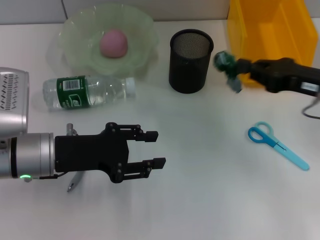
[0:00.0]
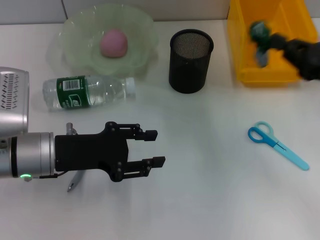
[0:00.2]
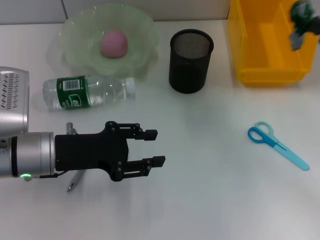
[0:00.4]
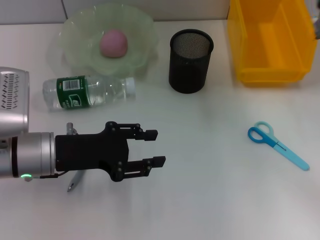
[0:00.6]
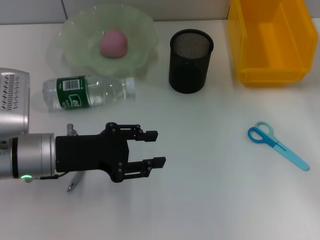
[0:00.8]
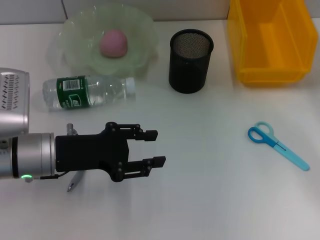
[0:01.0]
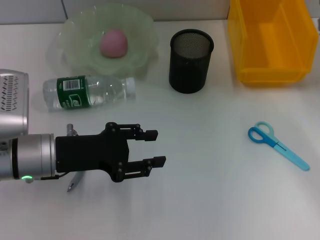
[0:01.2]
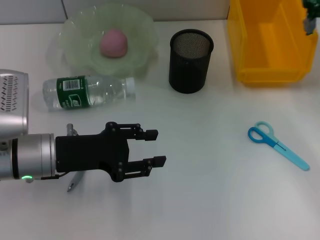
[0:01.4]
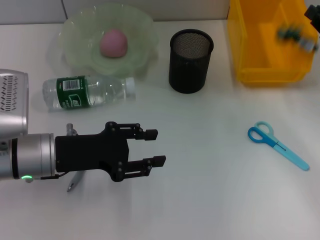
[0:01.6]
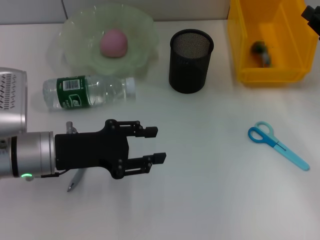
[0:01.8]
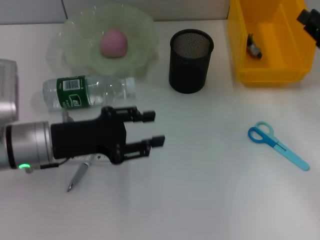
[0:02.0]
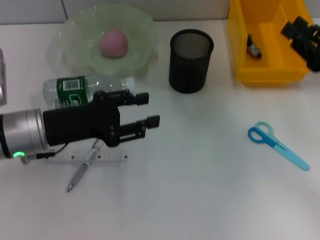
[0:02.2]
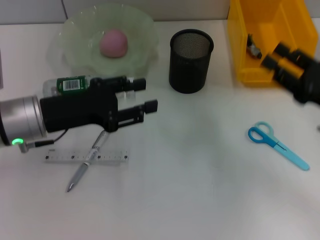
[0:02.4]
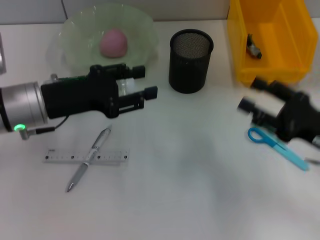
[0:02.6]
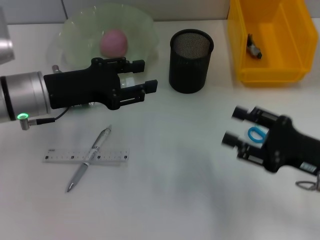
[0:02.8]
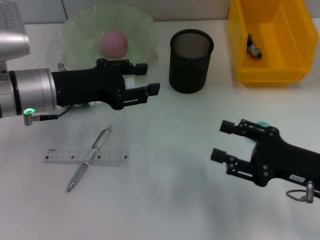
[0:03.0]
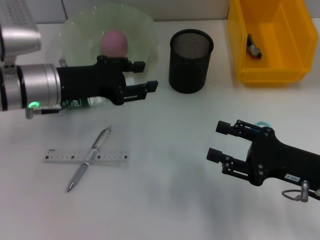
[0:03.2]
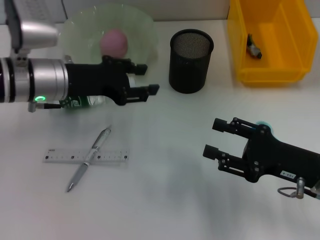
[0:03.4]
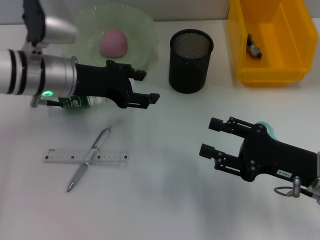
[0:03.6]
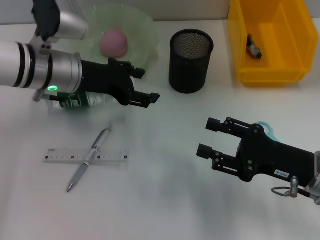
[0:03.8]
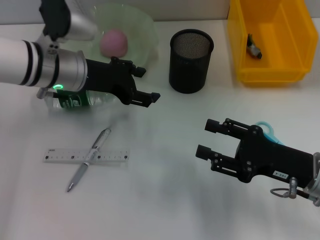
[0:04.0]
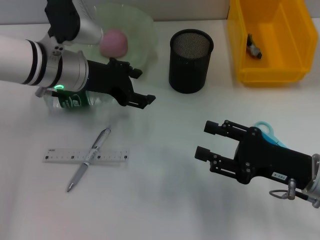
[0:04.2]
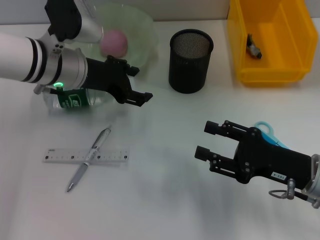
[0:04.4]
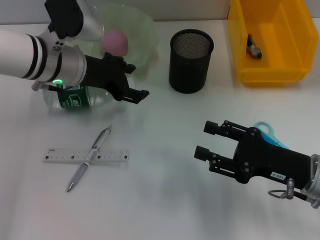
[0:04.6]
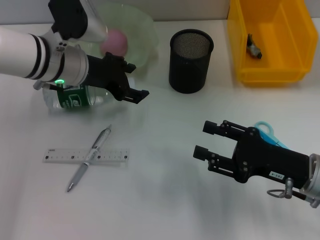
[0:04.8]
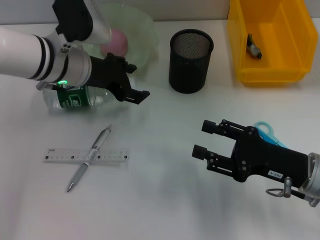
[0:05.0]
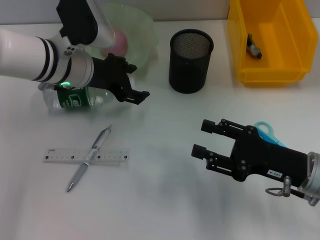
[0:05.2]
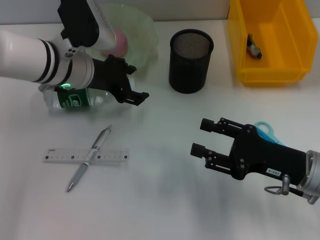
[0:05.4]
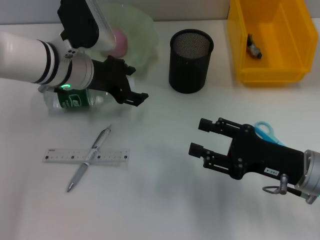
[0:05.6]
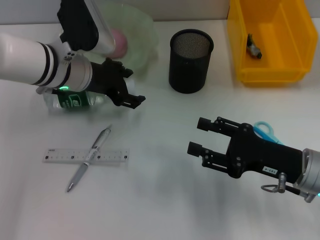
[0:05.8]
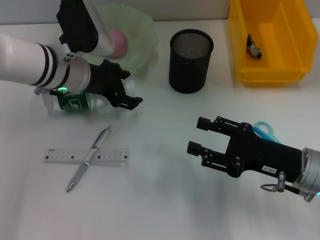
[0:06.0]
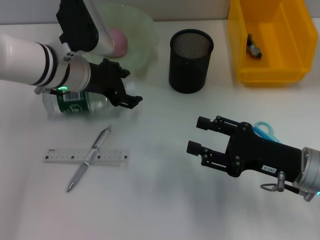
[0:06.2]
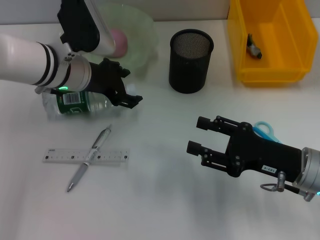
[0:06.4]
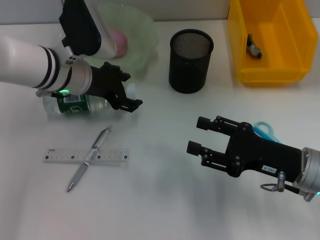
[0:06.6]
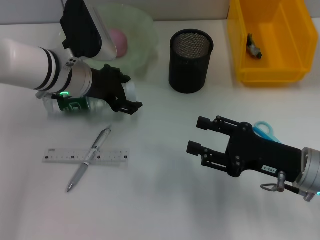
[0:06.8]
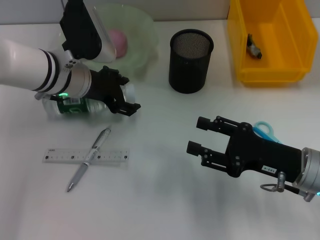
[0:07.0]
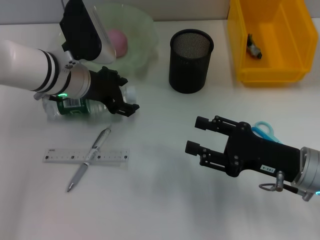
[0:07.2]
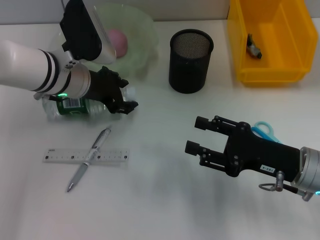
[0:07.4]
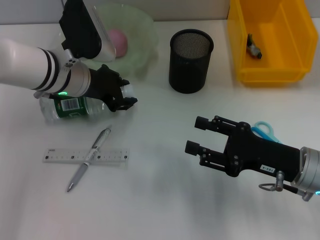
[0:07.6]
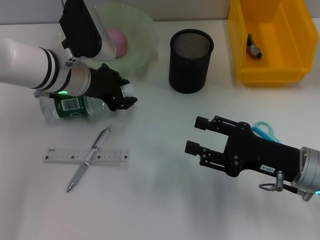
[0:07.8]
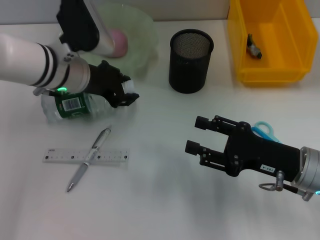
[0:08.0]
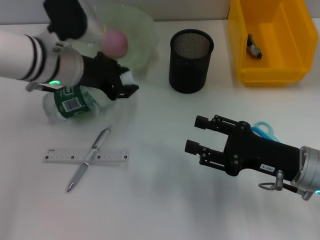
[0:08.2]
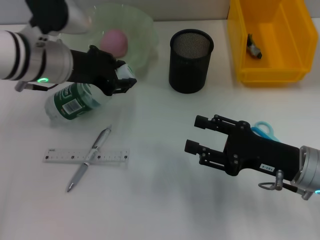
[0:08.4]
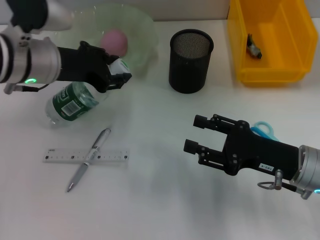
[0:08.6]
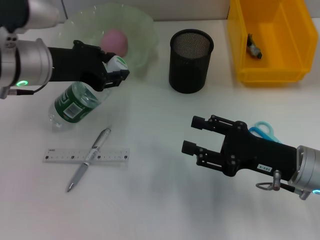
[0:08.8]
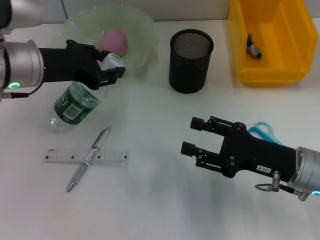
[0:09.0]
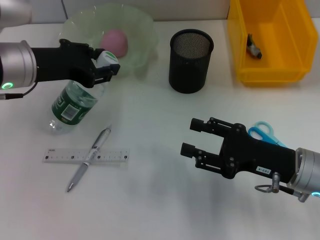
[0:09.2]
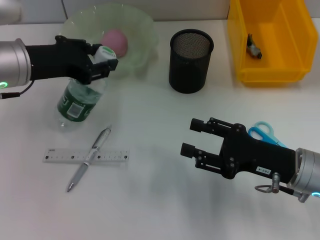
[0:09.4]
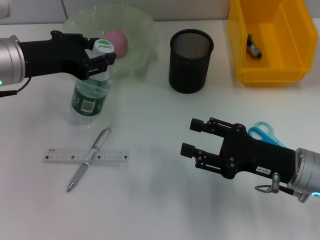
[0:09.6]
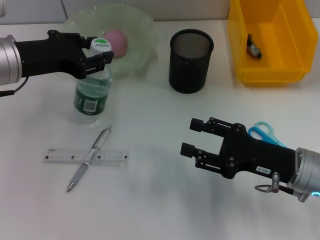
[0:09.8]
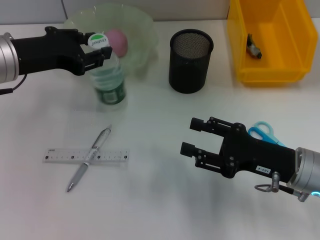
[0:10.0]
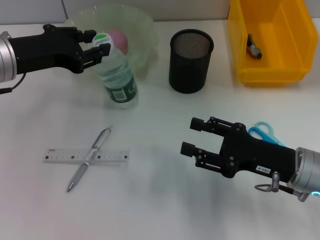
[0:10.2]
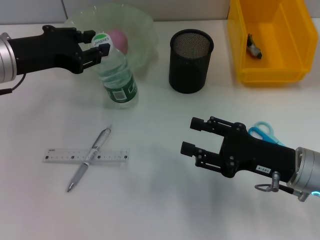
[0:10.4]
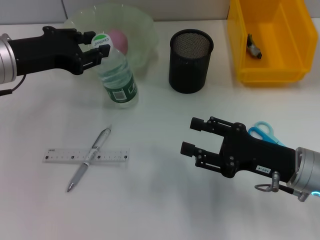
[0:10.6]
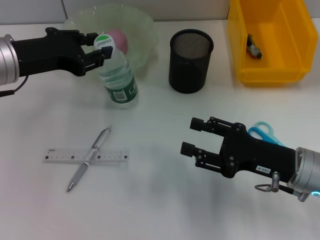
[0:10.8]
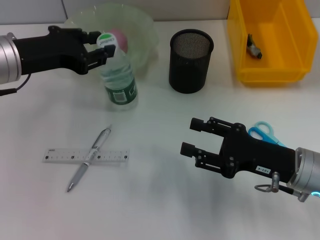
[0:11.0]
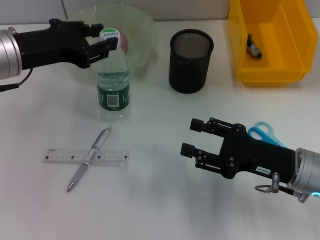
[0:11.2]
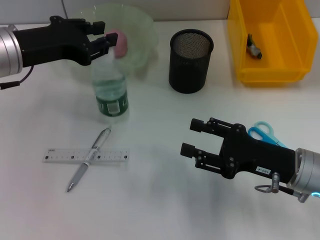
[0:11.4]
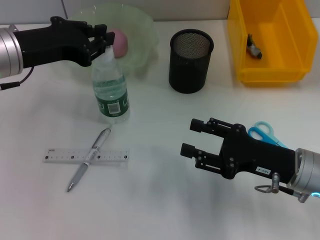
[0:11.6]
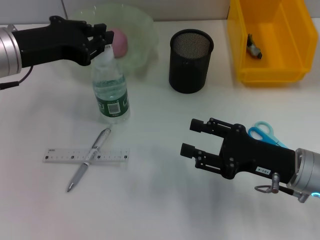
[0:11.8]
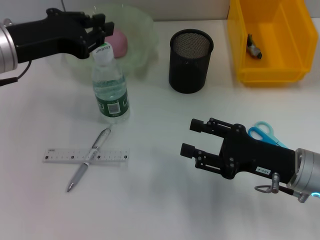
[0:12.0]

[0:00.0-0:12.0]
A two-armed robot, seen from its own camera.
Step, 0:00.0 to 0:01.8: Place the plastic into the trash can with the right hand.
Step, 0:02.2 to 0:07.8: Grab the water bottle with the left hand.
0:00.0 to 0:01.6: The right gripper travels to the right by about 5 cm.
0:01.6 to 0:03.0: The left gripper goes about 5 cm forward, while the right gripper moves backward, to the left and downward, roughly 15 cm, and opens.
0:03.0 to 0:04.4: The left gripper moves forward, roughly 5 cm.
0:04.4 to 0:06.0: The grippers make only small movements.
0:06.0 to 0:07.6: Both grippers stay about where they are.
0:07.6 to 0:09.0: The left gripper shifts some 5 cm upward.
0:09.0 to 0:10.4: There are only small adjustments of the grippers.
0:10.4 to 0:12.0: The left gripper closes.

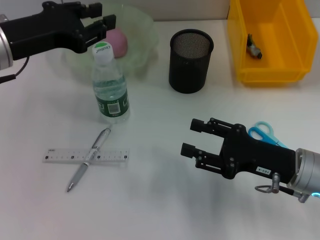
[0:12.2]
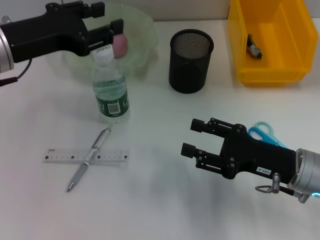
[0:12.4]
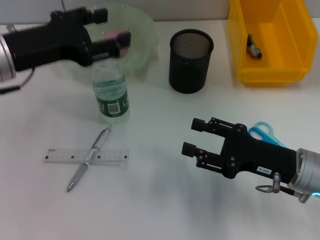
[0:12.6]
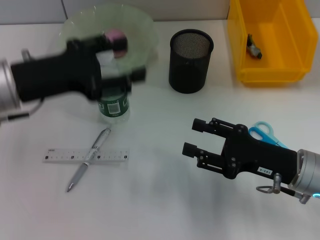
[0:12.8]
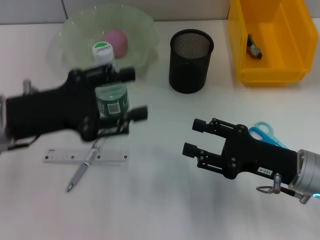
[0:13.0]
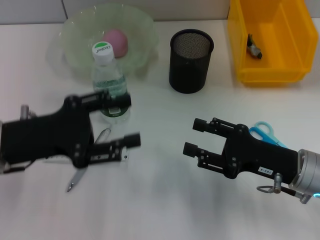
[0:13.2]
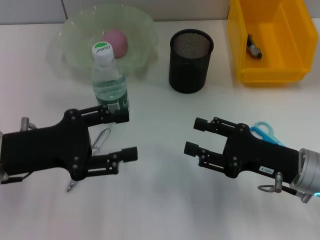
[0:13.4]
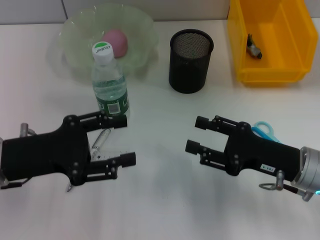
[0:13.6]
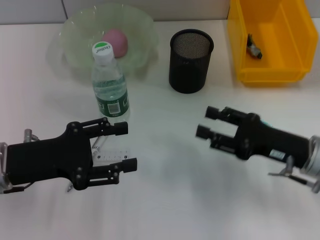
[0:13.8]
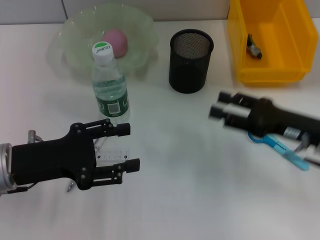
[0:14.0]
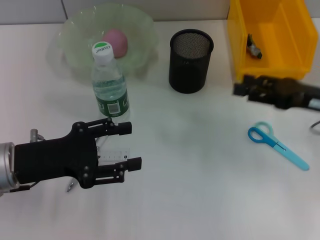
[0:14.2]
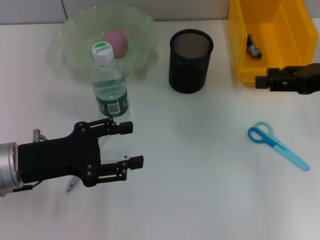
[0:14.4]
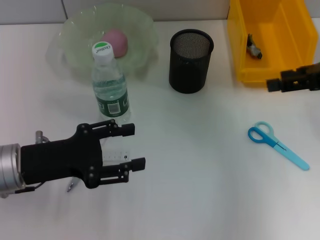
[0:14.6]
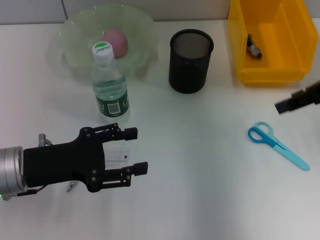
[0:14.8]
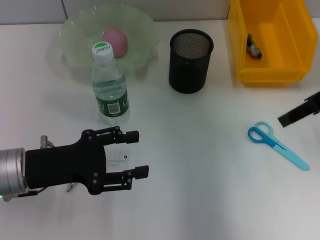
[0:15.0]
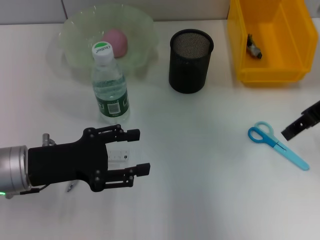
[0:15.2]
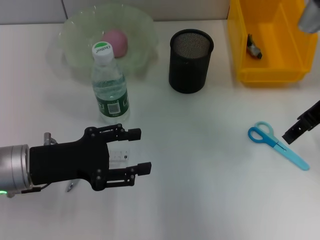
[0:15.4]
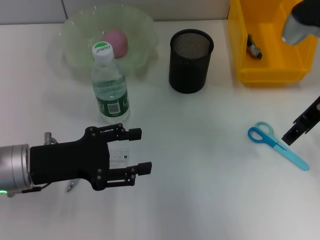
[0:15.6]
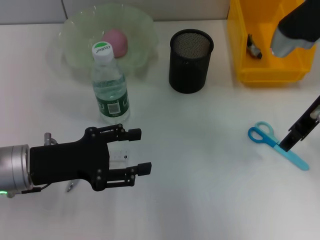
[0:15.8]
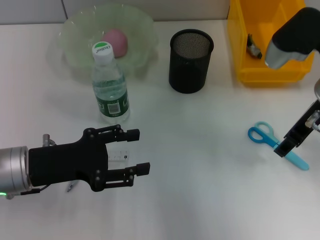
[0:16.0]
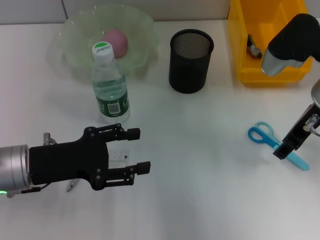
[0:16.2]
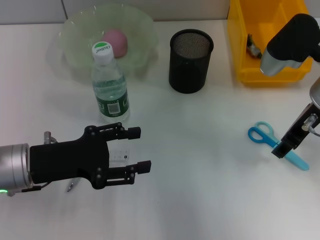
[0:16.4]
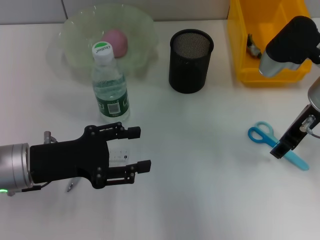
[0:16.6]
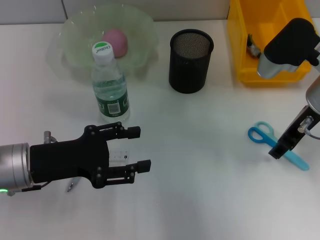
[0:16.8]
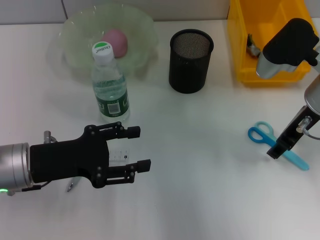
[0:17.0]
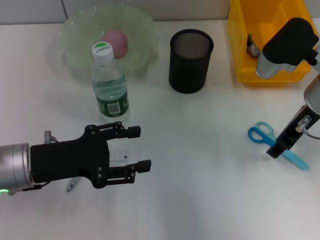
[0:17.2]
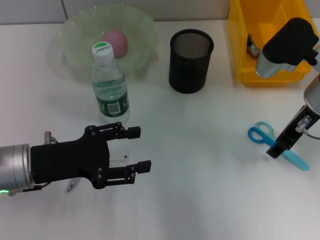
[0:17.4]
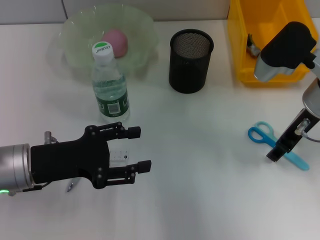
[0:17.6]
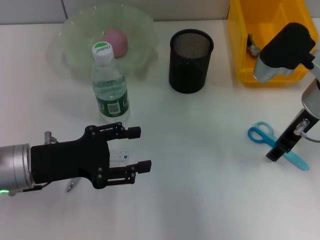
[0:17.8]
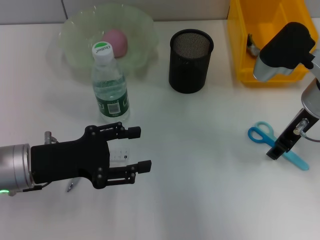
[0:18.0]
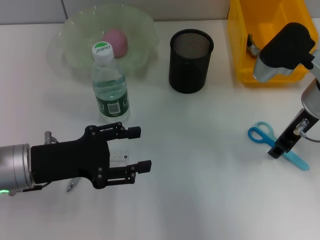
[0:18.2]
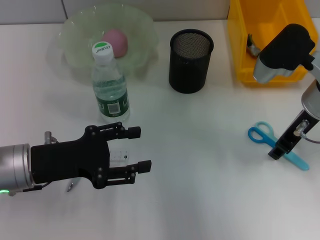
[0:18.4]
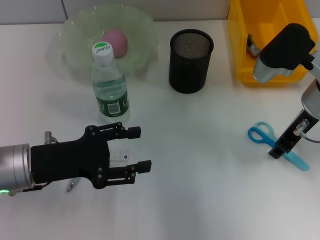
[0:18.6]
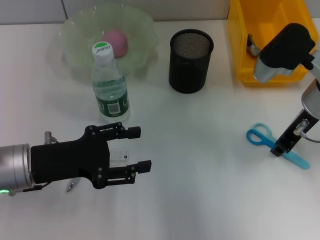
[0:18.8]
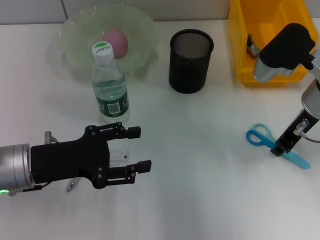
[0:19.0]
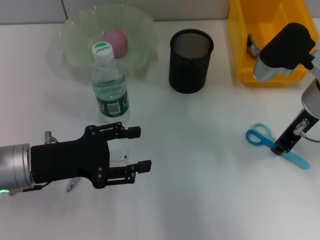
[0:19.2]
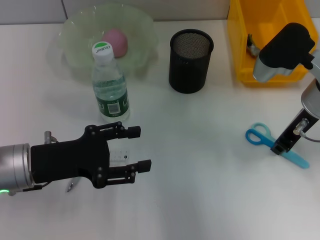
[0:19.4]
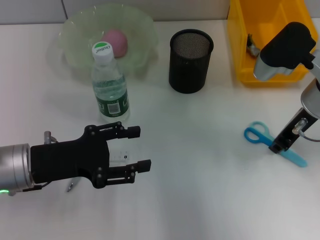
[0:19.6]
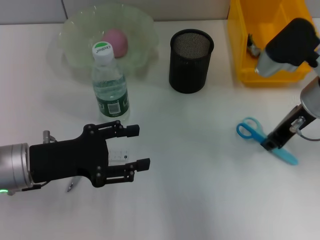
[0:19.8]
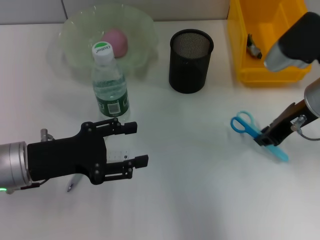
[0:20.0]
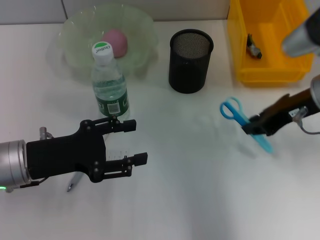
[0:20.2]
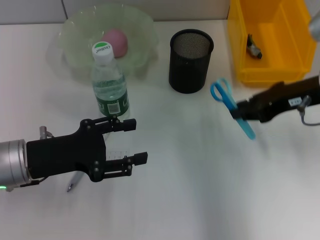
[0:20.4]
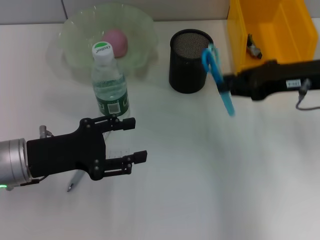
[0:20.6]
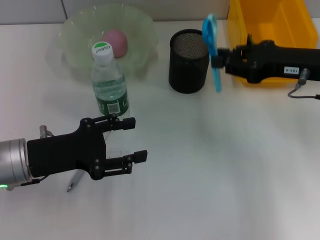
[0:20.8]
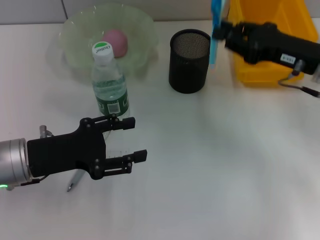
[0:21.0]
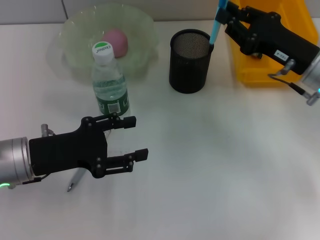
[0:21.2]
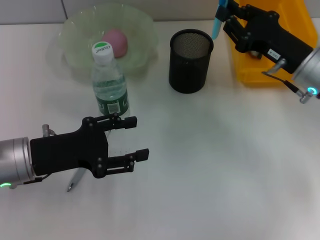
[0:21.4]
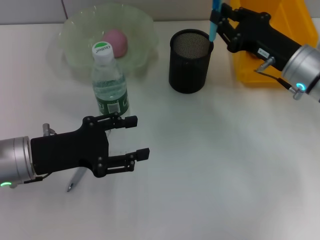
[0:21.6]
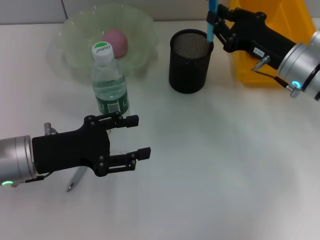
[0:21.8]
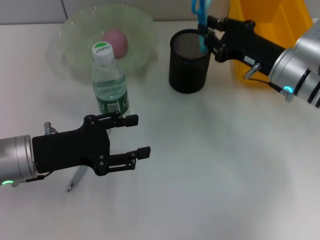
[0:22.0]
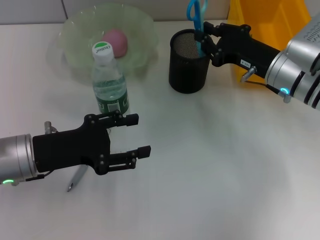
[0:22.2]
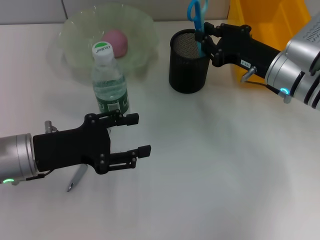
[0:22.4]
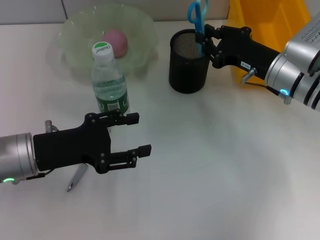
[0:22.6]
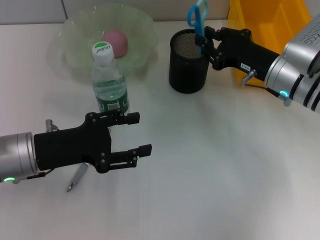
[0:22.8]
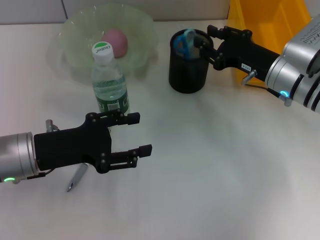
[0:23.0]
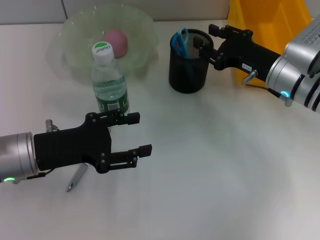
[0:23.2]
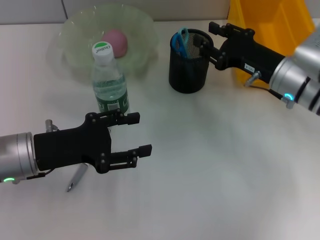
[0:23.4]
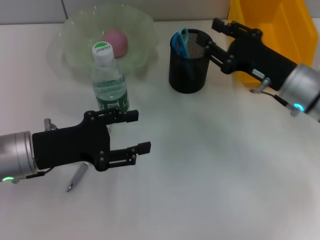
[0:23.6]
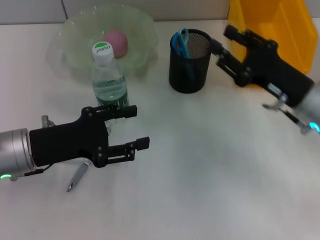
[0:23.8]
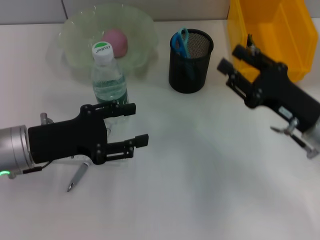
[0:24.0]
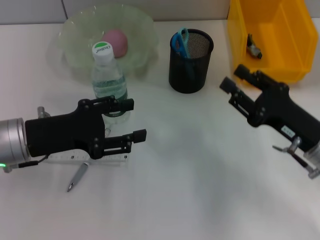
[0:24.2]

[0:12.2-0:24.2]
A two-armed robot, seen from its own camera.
Step, 0:12.2 to 0:19.4: Grab the blue scissors with the right hand.
Step, 0:19.6 to 0:23.2: Place the blue scissors into the pen holder with the right hand.
0:12.2 to 0:13.8: The left gripper shifts some 15 cm downward and backward, and opens its fingers.
0:13.8 to 0:15.2: The right gripper heads upward and forward, covering approximately 20 cm.
0:15.2 to 0:16.6: The right gripper moves approximately 5 cm.
0:16.6 to 0:18.2: Both grippers stay about where they are.
0:18.2 to 0:19.8: The right gripper closes up.
0:21.2 to 0:22.6: The right gripper shifts by some 5 cm.
0:22.6 to 0:24.2: The right gripper travels backward by about 10 cm.
